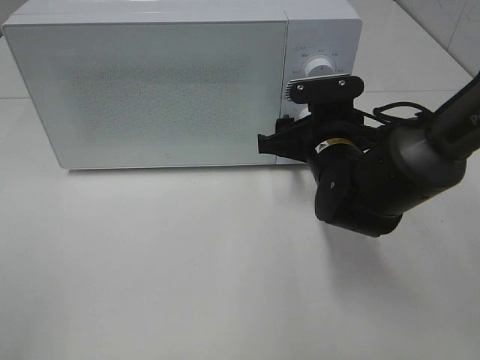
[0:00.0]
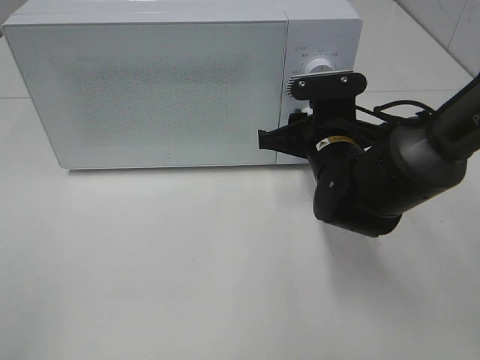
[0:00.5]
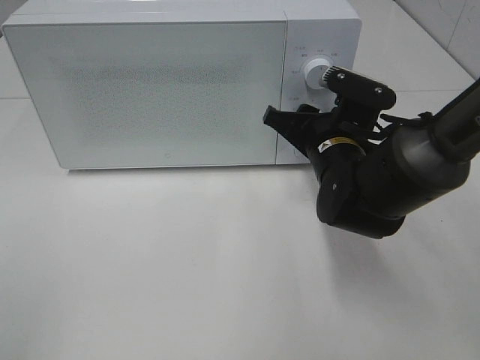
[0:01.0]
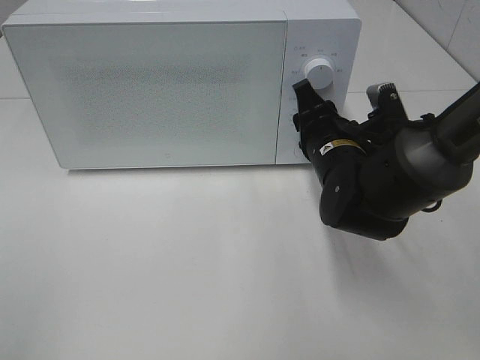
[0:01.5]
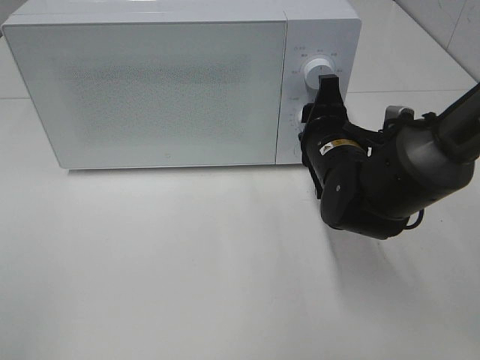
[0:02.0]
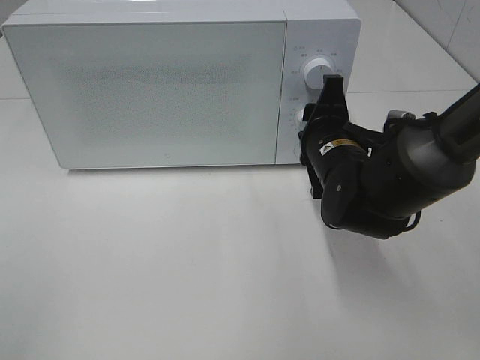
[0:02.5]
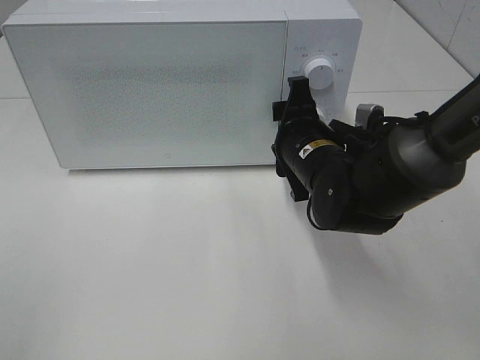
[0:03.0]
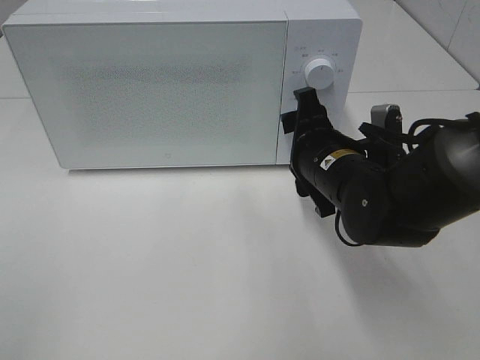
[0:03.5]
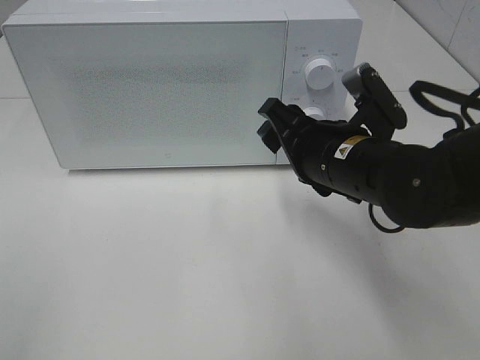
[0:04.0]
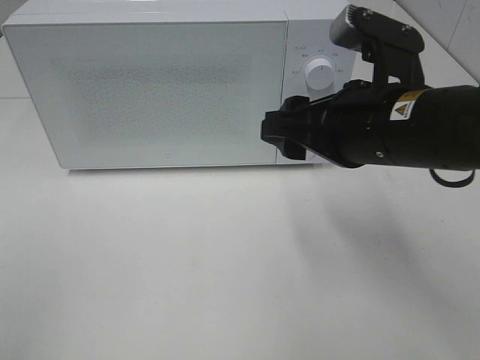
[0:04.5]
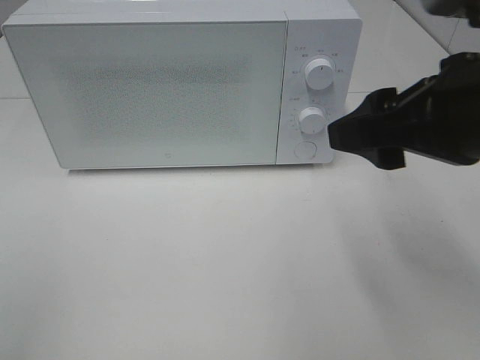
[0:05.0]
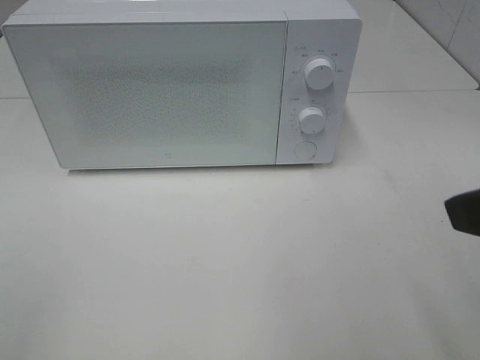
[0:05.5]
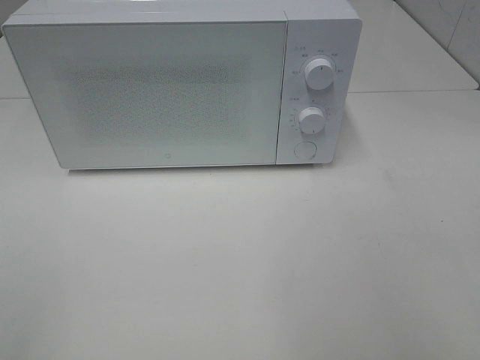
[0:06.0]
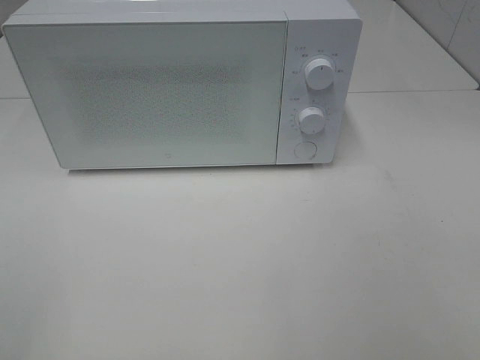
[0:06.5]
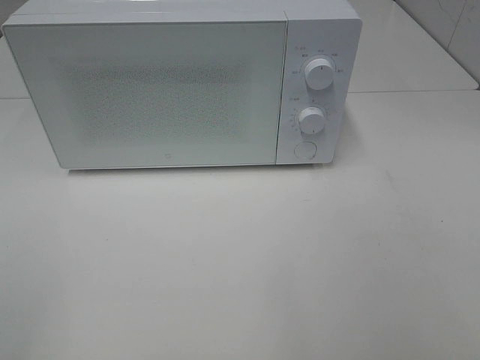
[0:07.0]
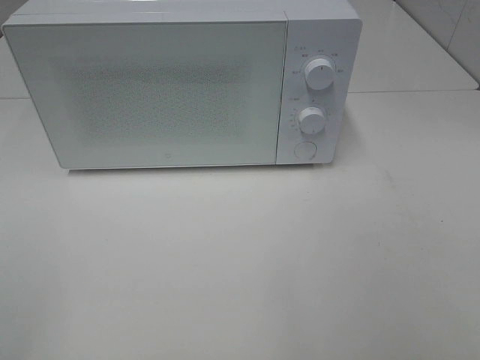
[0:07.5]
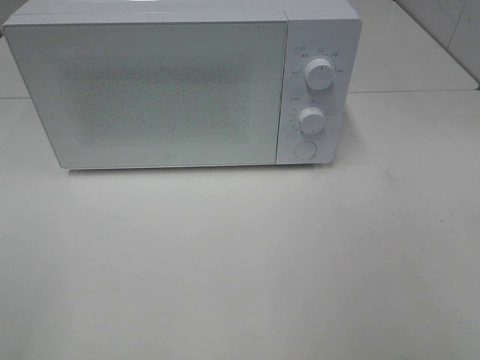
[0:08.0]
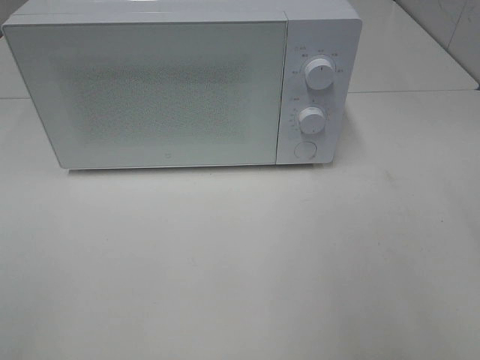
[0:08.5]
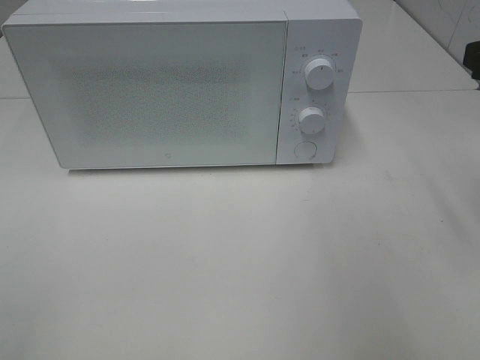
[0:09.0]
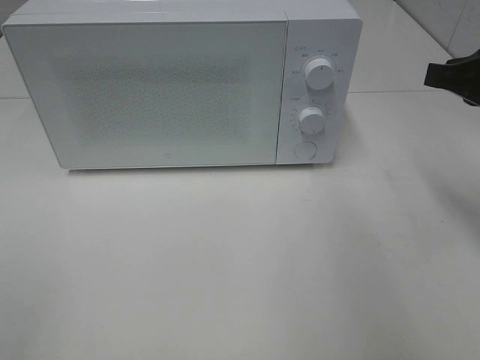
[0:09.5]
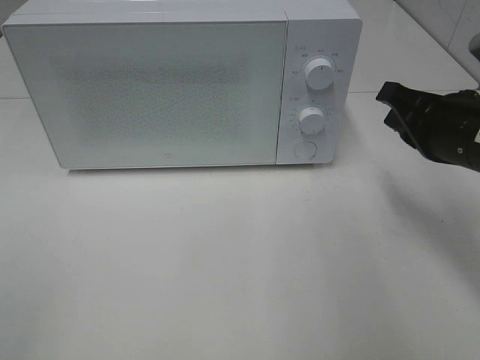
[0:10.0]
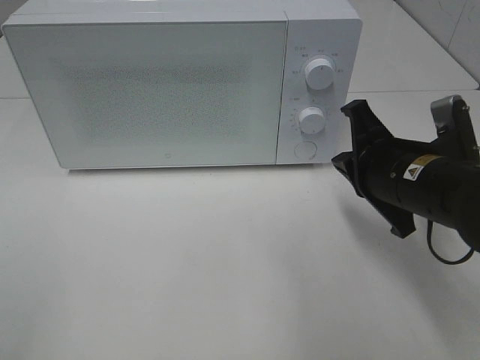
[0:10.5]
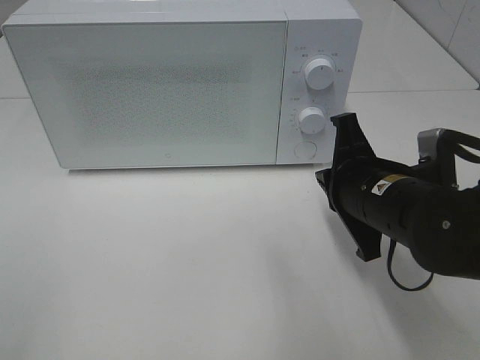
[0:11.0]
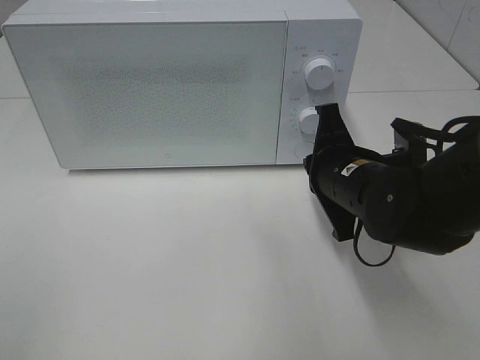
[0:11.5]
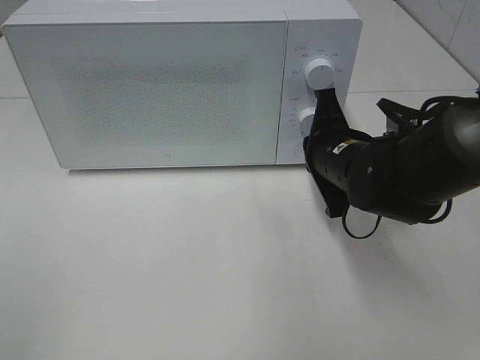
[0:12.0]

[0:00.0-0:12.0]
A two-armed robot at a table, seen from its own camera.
Task of the whole recording: Heat the burger.
Step, 0:00.0 to 0:02.5: Right hand: twist timer button.
0:02.0 to 0:04.0: The right gripper is displaced backward by approximately 5 cm.
0:04.0 to 0:06.0: The right gripper goes approximately 30 cm backward, to the right and upward.
0:08.0 to 0:10.0: The right gripper moves forward and downward, approximately 25 cm, and closes up.
0:10.0 to 0:12.0: The right gripper heads to the left, downward and forward, covering approximately 15 cm.

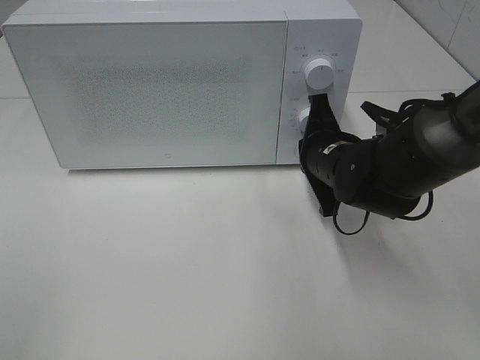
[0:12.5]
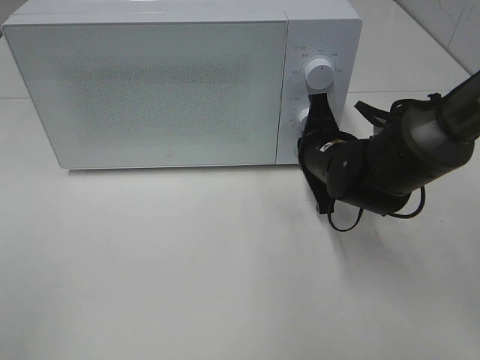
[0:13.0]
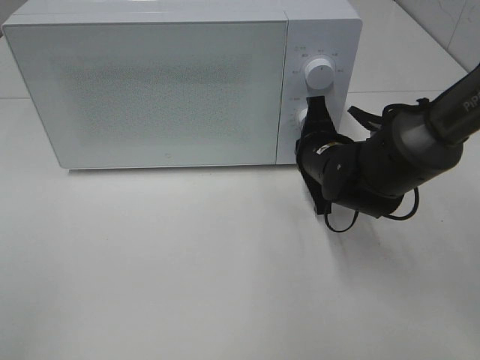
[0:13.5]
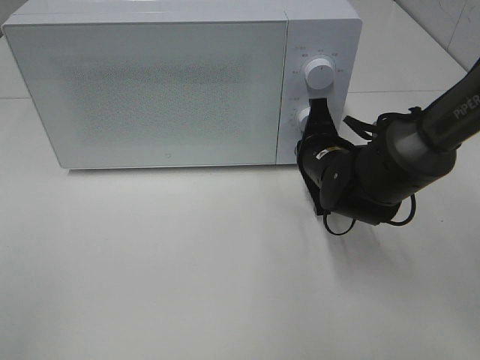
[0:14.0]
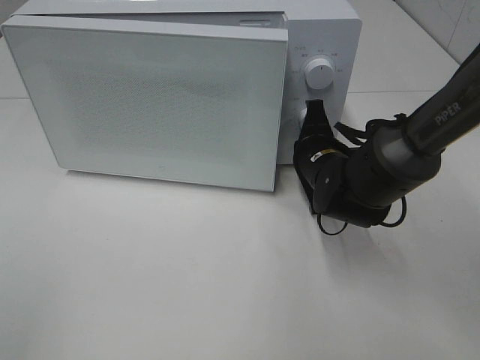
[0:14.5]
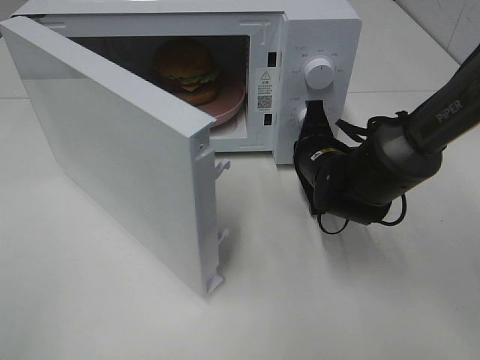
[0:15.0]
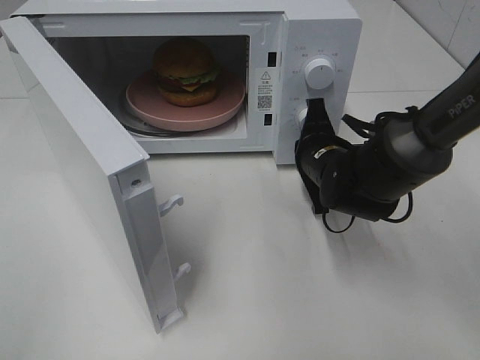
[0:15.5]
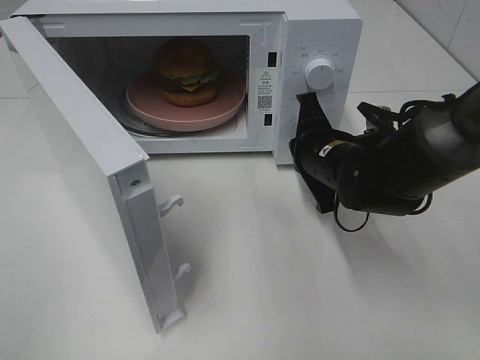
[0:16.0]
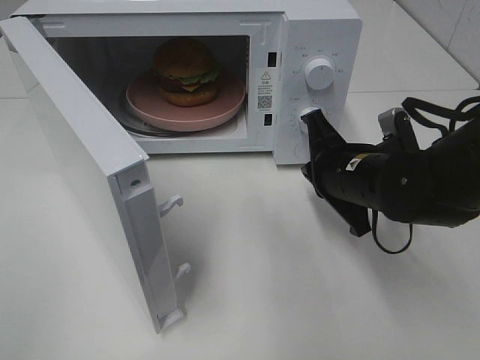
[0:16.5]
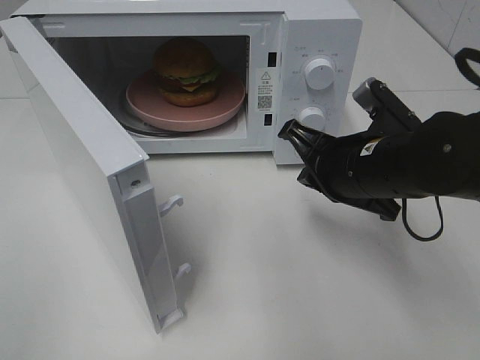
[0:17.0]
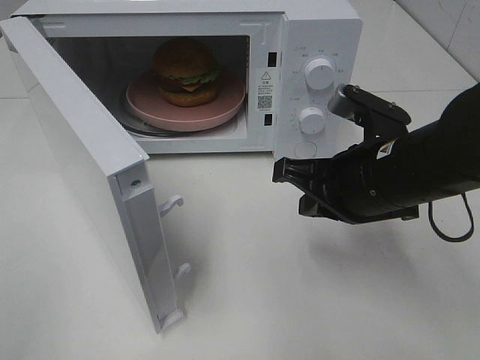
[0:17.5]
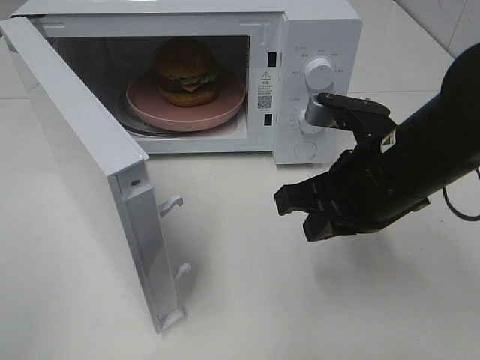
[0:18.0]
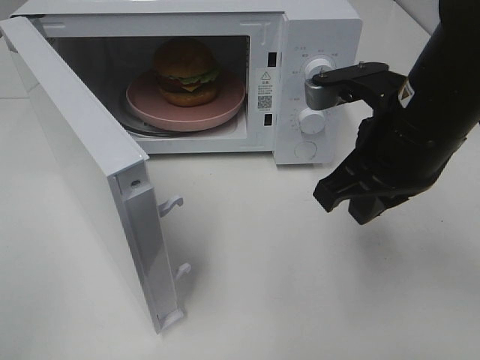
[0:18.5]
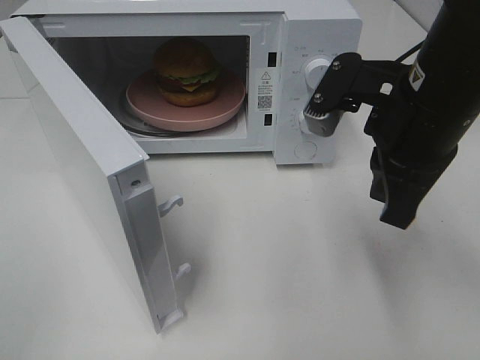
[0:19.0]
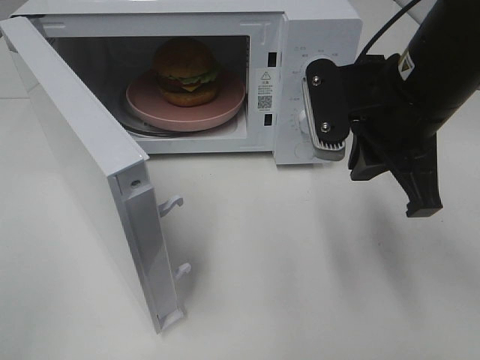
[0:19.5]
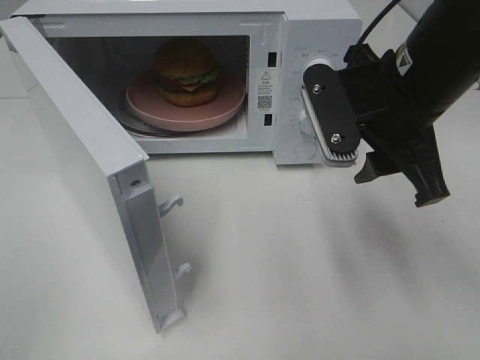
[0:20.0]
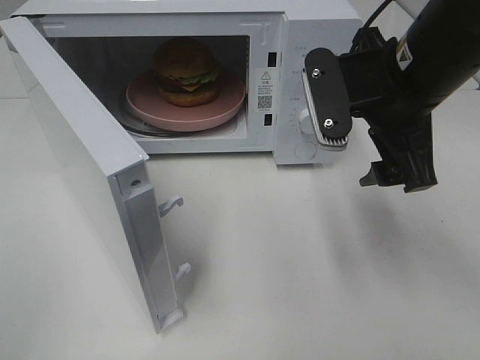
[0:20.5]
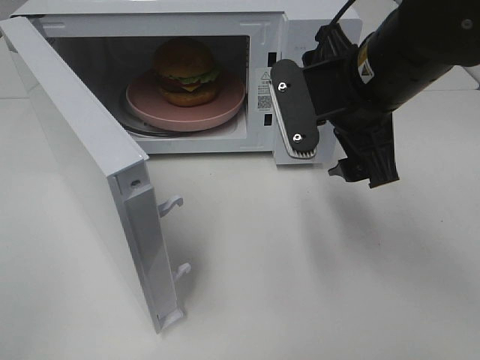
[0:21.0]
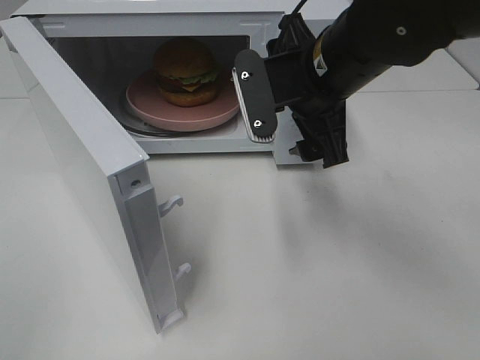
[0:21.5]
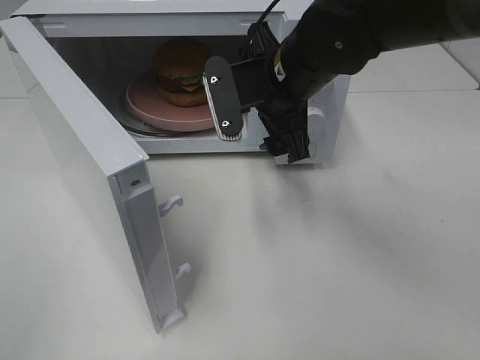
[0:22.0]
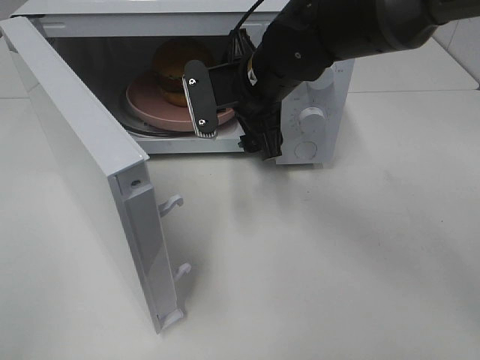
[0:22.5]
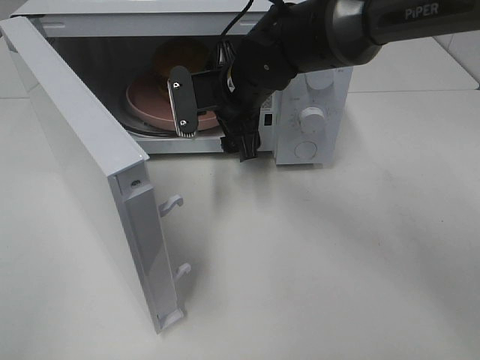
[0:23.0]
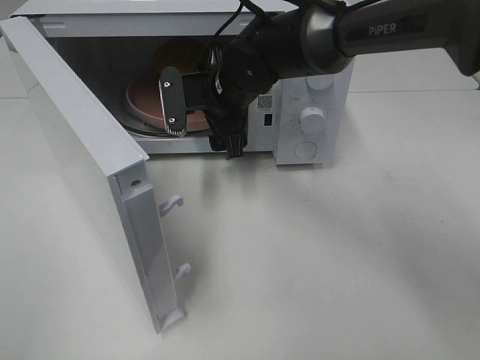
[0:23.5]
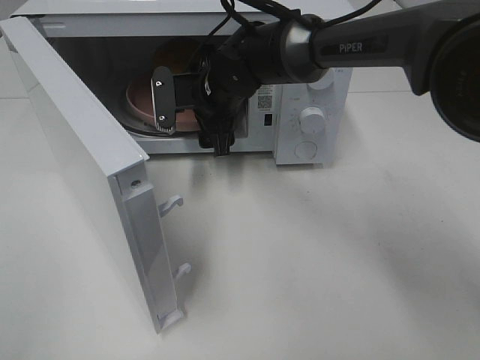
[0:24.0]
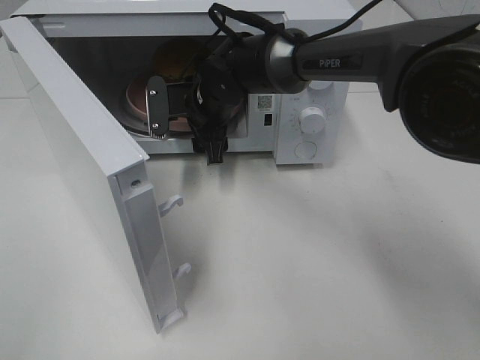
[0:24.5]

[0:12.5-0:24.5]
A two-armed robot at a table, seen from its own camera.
Task of the whole recording: Heat the burger.
Step, 0:12.5 to 0:15.5: Right hand: press the switch.
0:12.5 to 0:14.5: The grippers stay close to where they were, moving slightly.
0:14.5 to 0:16.5: The right gripper shifts approximately 5 cm backward.
0:16.5 to 0:18.5: The right gripper shifts about 10 cm upward.
0:18.5 to 0:20.5: The right gripper opens up.
0:20.5 to 0:22.5: The right gripper moves to the left, forward and downward, roughly 15 cm.
0:22.5 to 0:24.5: The right gripper is displaced forward, downward and to the left by roughly 10 cm.

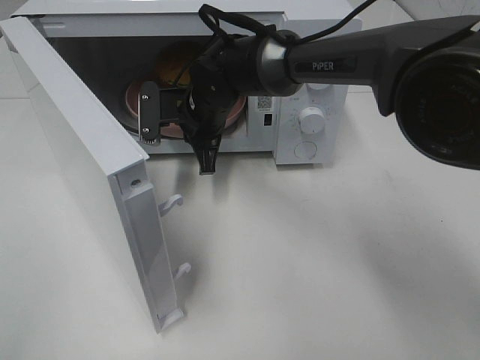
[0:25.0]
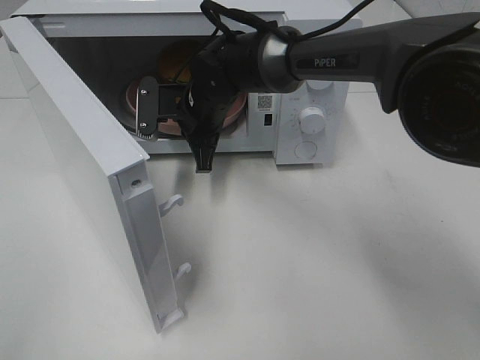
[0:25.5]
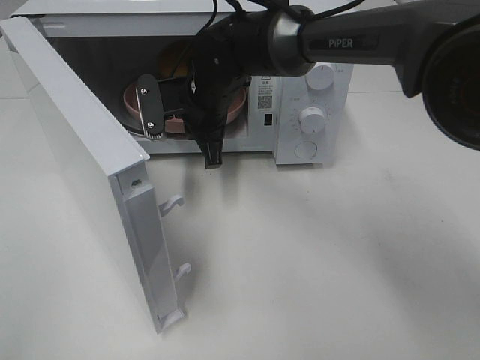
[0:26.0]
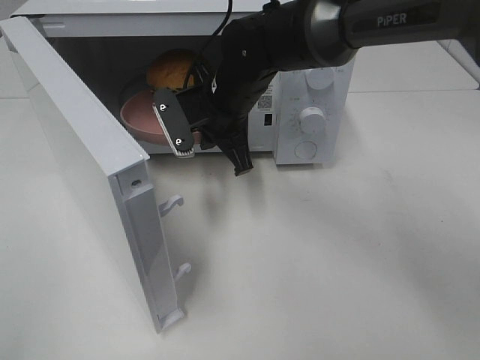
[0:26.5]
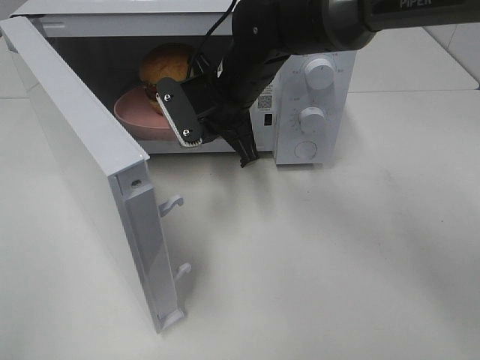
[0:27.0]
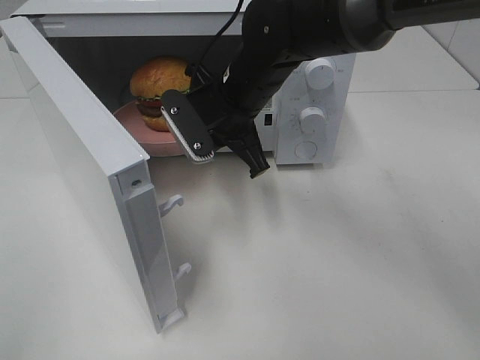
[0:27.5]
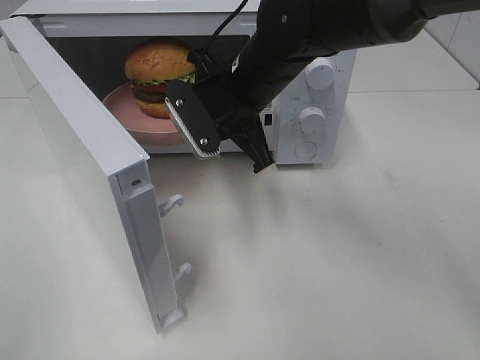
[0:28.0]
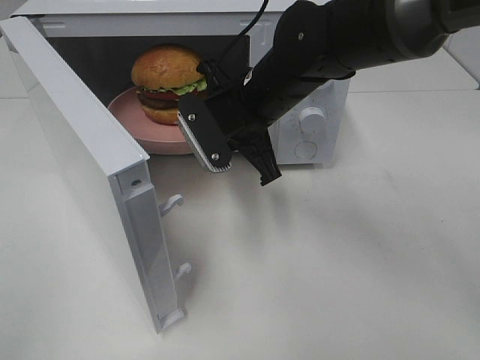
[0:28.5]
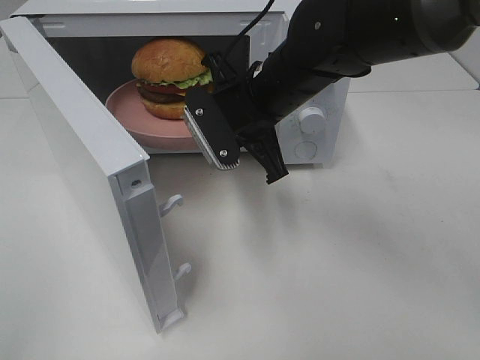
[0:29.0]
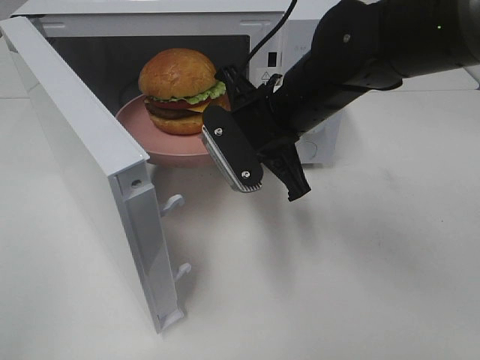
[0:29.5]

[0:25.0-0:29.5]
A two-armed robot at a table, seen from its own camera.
Task of the whole recording: Heat the burger.
0:25.0 to 0:27.0: The right gripper is displaced upward by about 5 cm.
0:27.0 to 0:29.5: The right gripper heads backward and to the right, covering about 10 cm.
